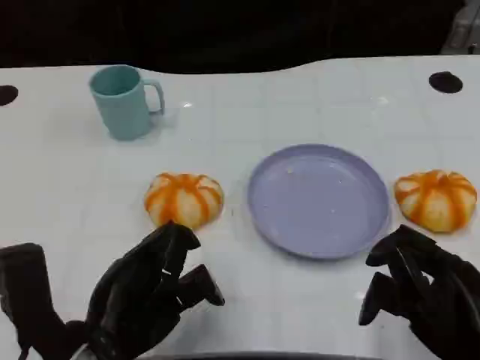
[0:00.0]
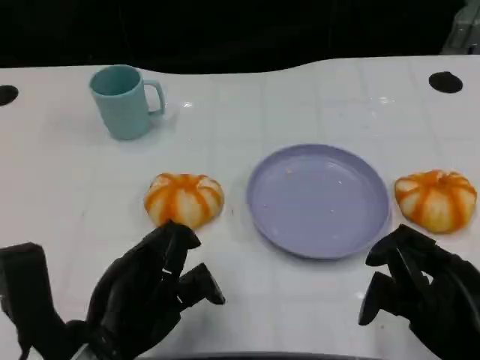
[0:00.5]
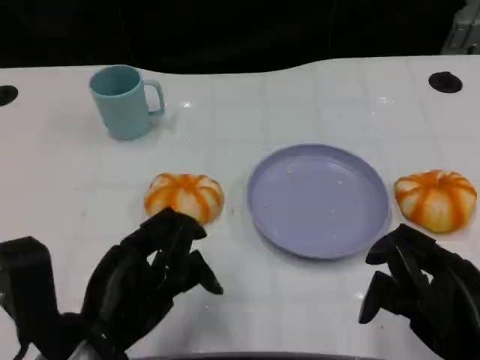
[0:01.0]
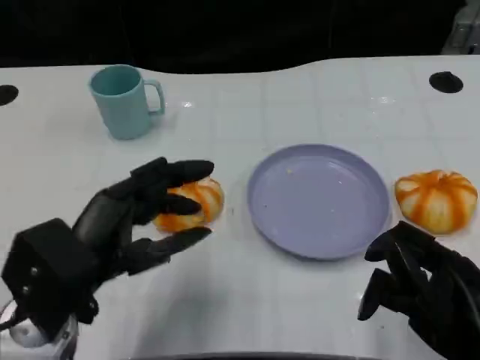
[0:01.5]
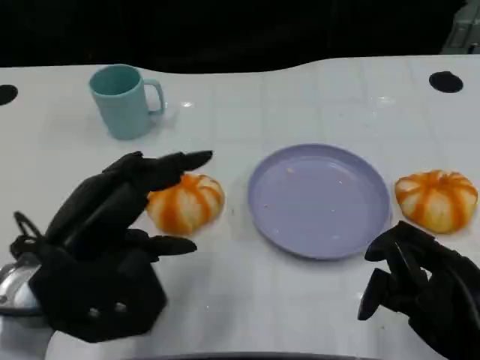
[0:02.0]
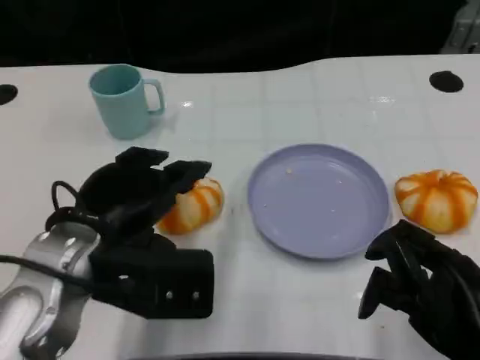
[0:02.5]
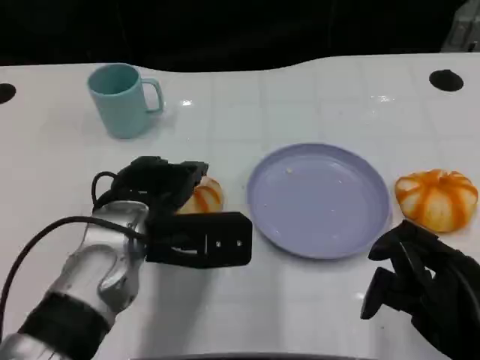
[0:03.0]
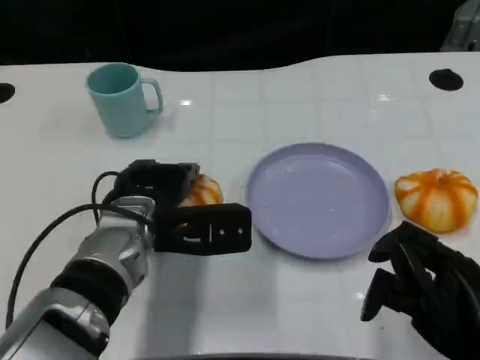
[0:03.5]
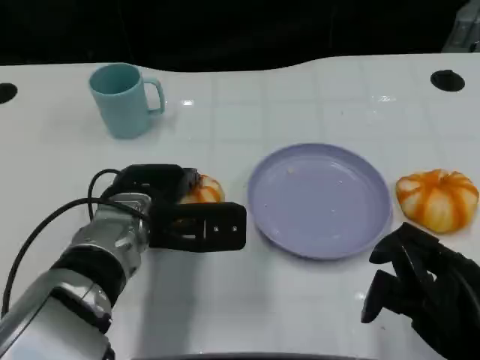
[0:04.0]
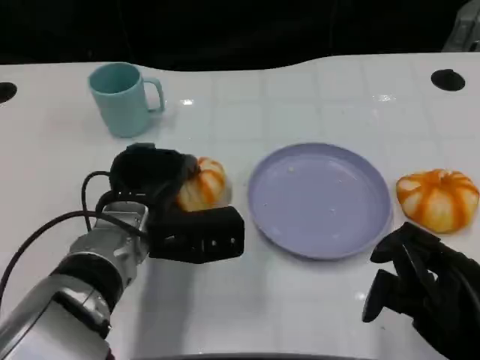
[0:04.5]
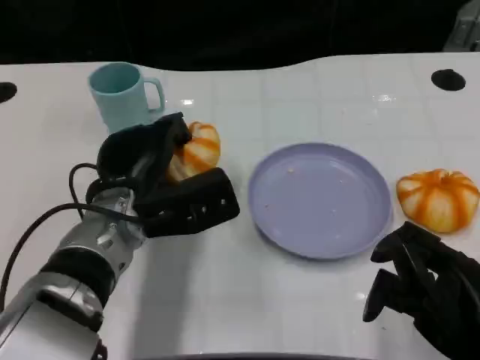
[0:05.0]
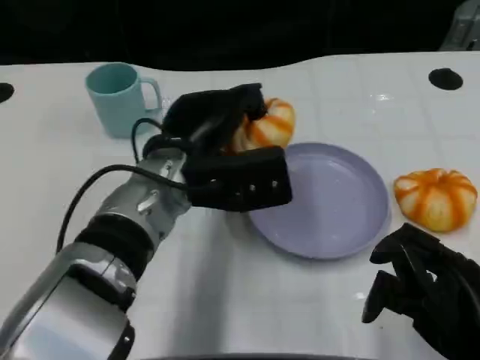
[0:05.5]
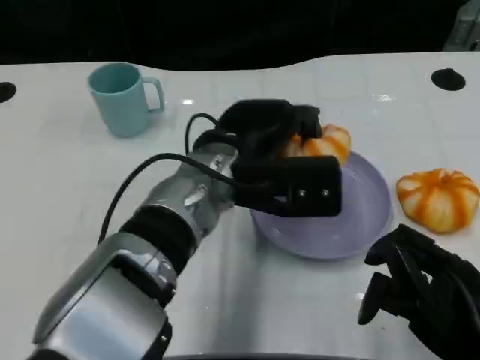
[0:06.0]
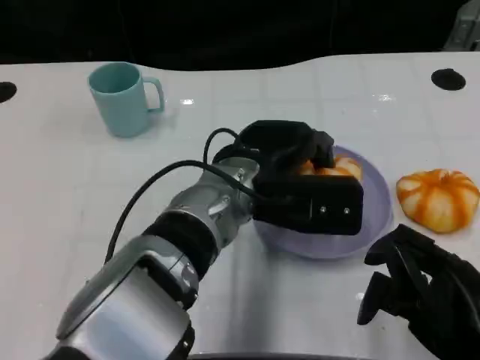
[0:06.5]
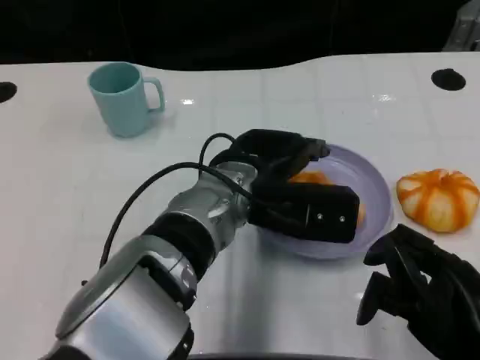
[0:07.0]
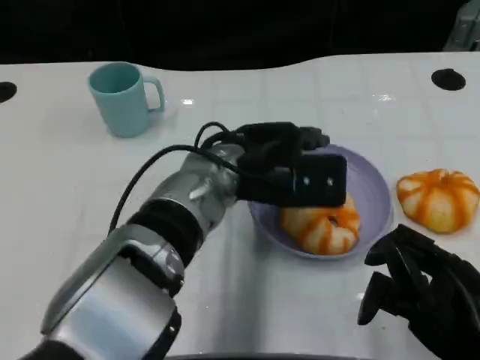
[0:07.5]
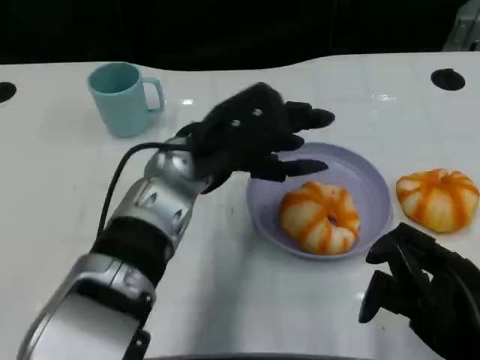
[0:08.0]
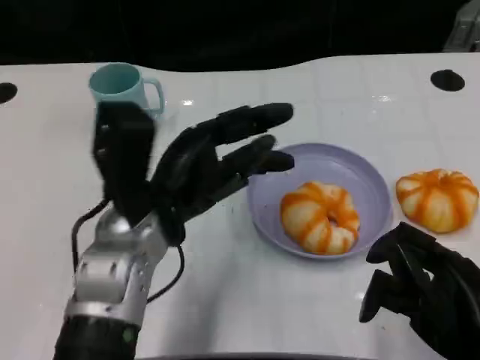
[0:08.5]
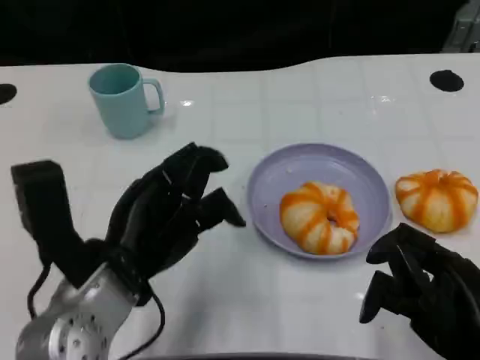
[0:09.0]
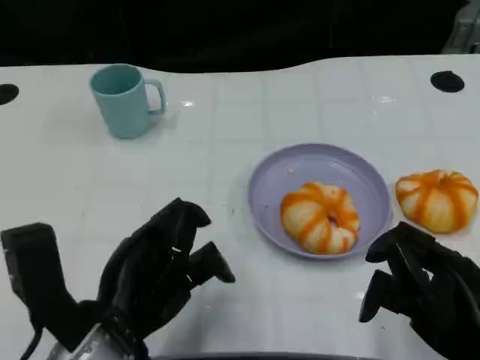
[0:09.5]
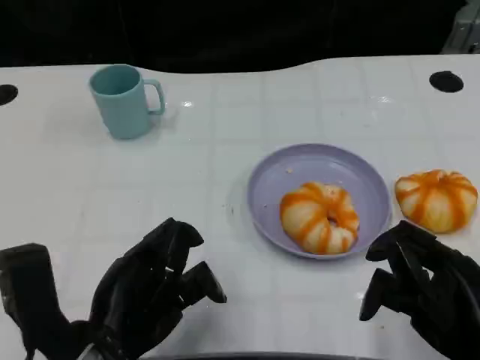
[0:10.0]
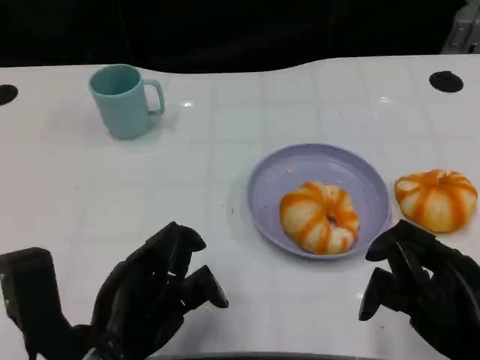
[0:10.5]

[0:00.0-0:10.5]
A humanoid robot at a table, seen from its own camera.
Task of the whole recording: Grasp the bread from the table and place it into the plate.
0:00.0 to 0:02.0: The left hand goes some 5 cm upward.
0:02.0 to 0:04.0: The left hand shifts about 15 cm forward, to the right and downward.
0:04.0 to 0:06.5: The left hand moves to the right, some 10 cm.
0:06.5 to 0:08.5: The left hand goes approximately 10 cm to the left.
0:08.5 to 0:10.5: The left hand goes about 10 cm backward.

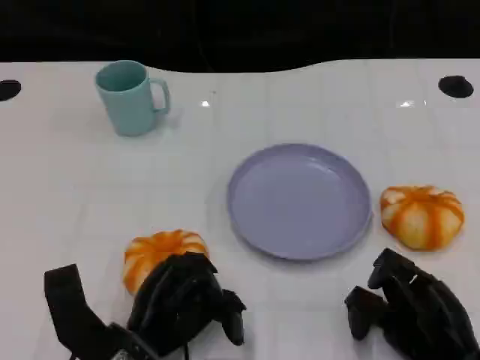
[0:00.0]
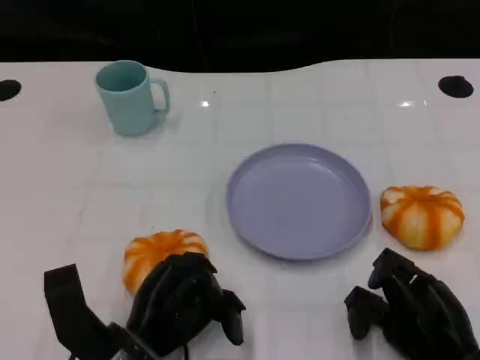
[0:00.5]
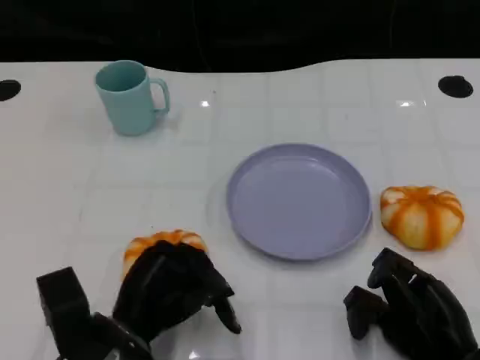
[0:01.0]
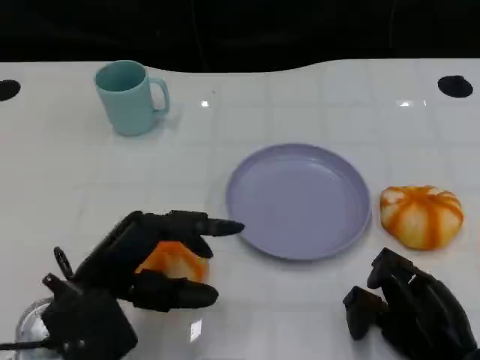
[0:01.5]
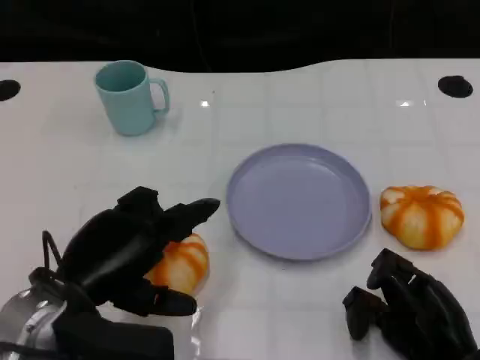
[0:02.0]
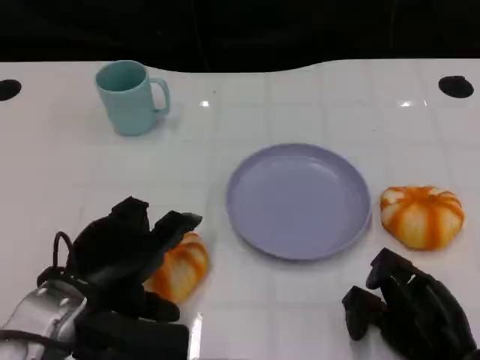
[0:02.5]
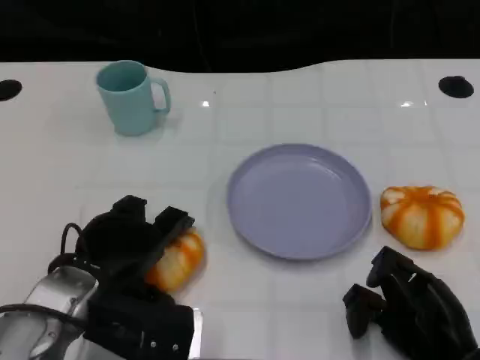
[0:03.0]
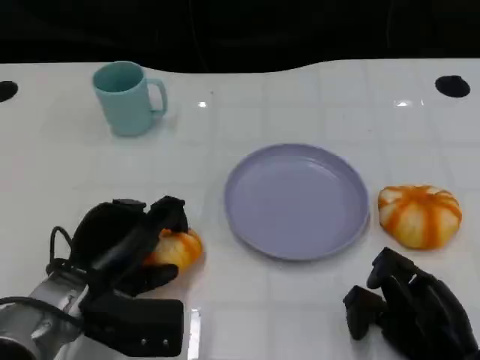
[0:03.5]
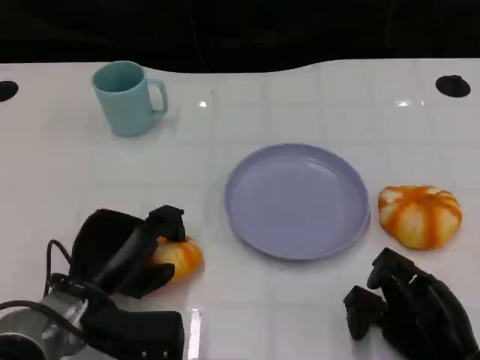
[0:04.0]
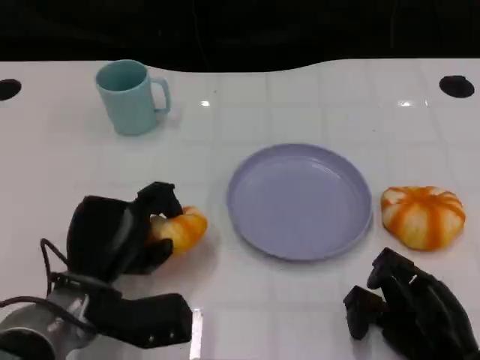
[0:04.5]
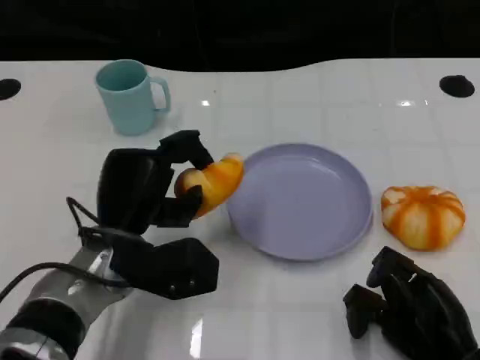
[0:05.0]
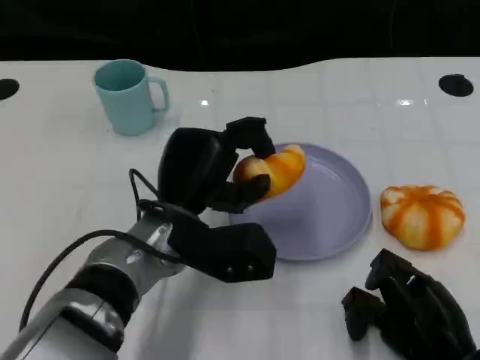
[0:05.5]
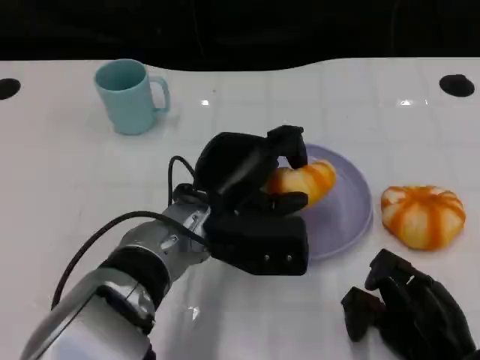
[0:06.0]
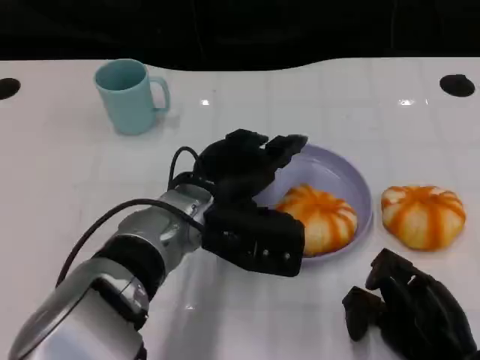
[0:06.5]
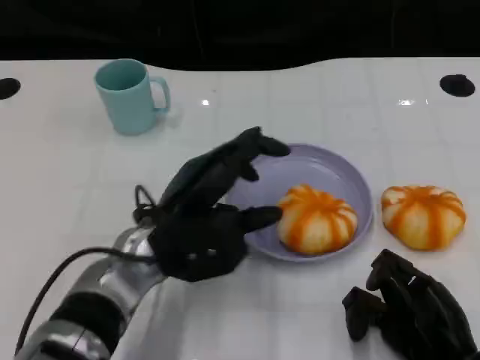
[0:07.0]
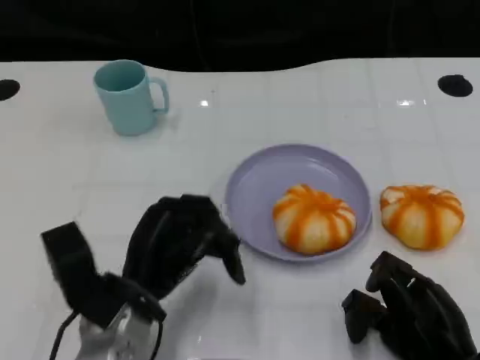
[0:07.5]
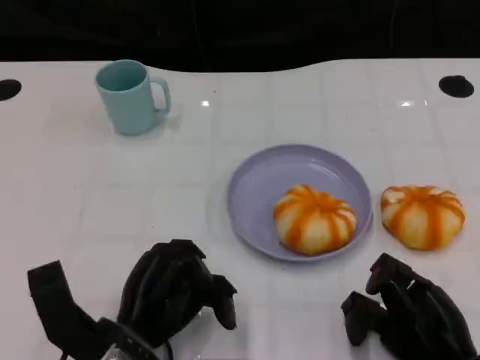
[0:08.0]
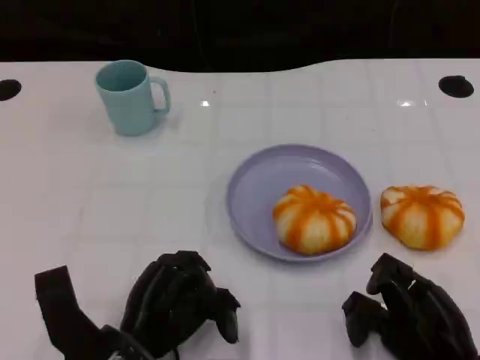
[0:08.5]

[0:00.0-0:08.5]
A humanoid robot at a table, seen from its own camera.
Task of the whole recording: Grasp the bread from the table and place it into the plate.
0:00.0 to 0:02.0: The left hand goes roughly 10 cm upward and to the left.
0:02.0 to 0:04.0: The left hand is displaced downward by roughly 10 cm.
0:04.0 to 0:06.5: The left hand shifts some 15 cm to the right, upward and forward.
0:06.5 to 0:08.5: The left hand shifts roughly 15 cm backward, downward and to the left.

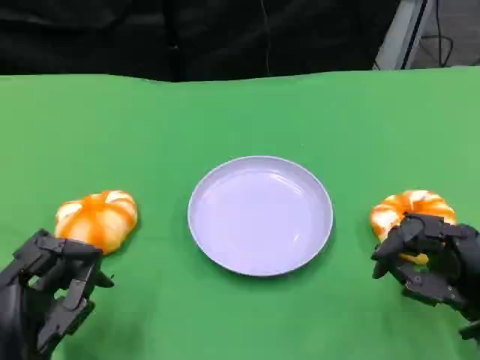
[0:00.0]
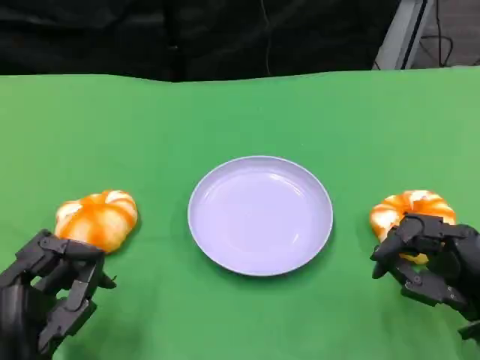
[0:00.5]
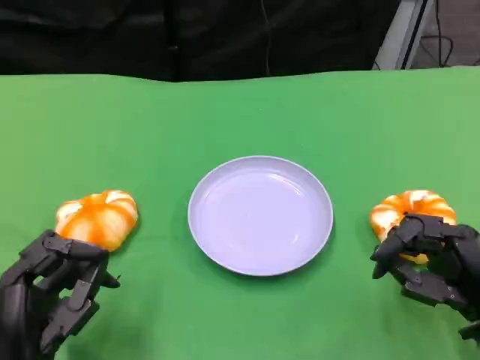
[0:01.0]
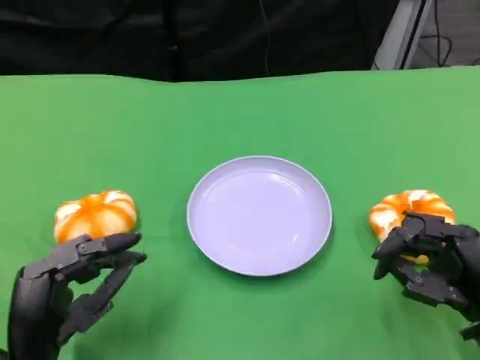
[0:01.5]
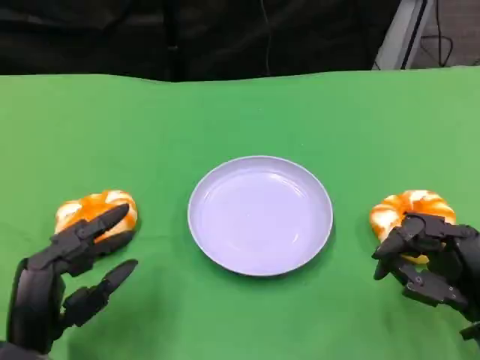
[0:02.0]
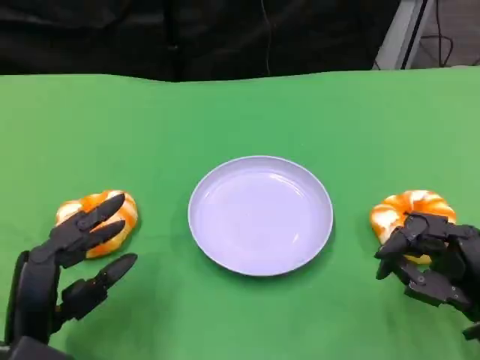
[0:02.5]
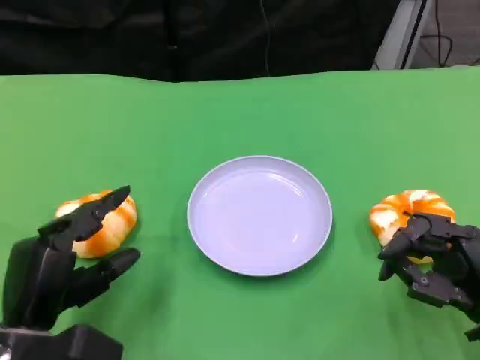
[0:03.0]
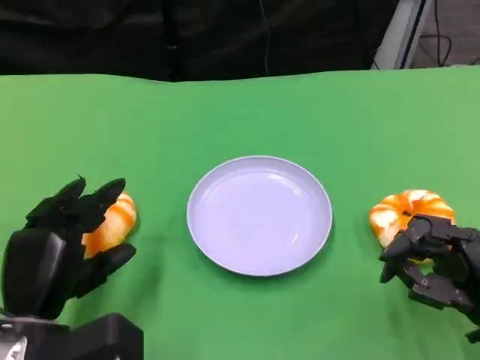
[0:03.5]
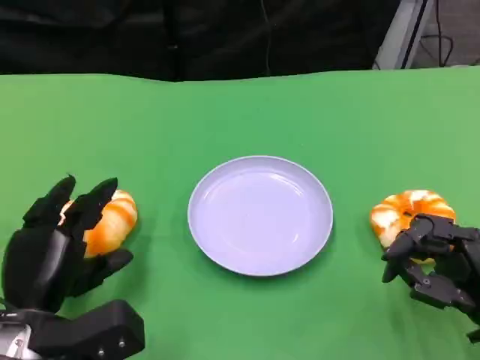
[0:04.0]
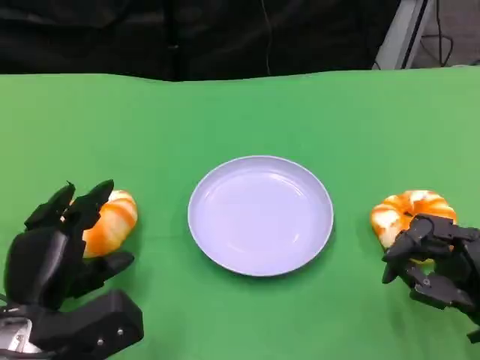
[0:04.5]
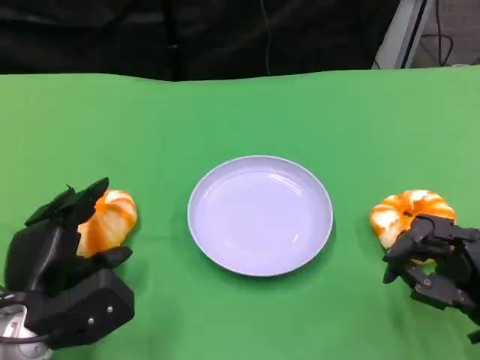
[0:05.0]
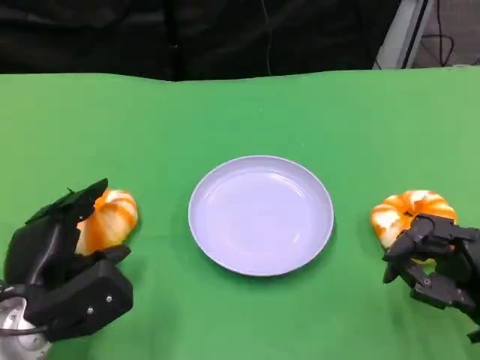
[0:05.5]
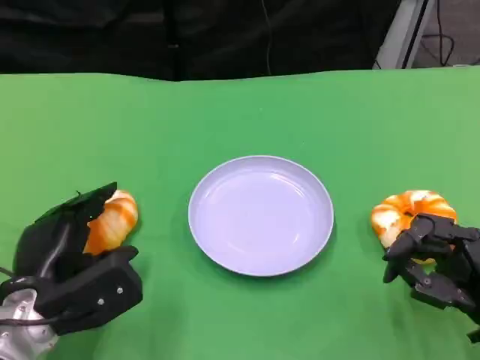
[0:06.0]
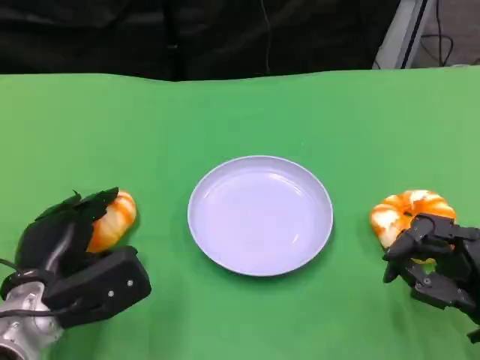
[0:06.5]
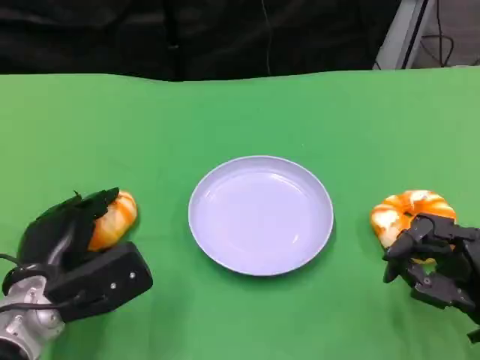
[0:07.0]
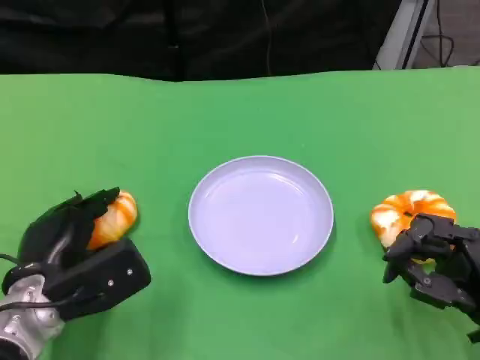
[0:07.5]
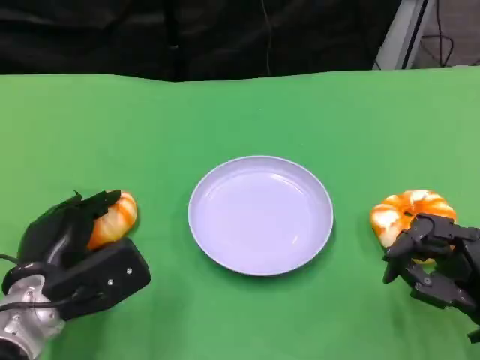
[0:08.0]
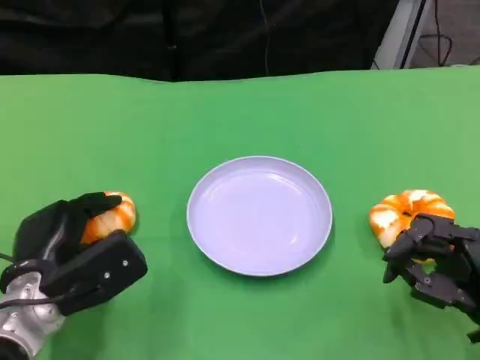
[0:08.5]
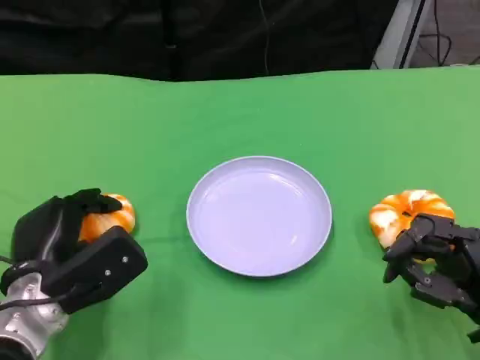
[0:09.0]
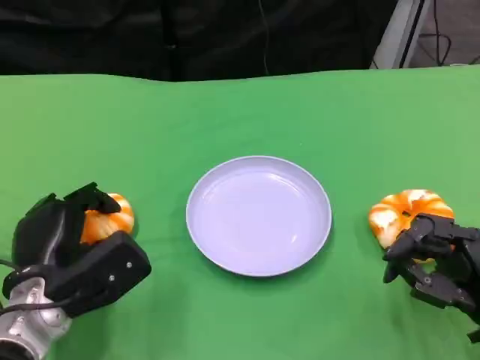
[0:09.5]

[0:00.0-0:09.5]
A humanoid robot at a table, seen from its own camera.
Task of the whole recording: Grasp the bread from the table and place it into the plate.
0:04.0 to 0:05.5: The hands move only a little.
0:05.5 to 0:09.5: The hands make only small movements.
